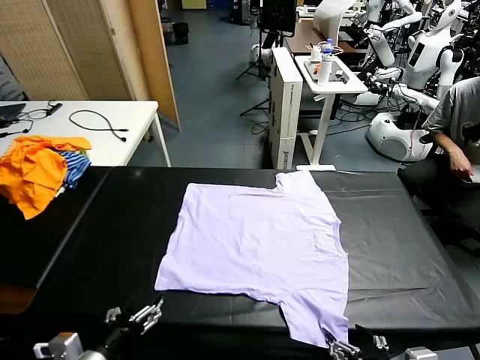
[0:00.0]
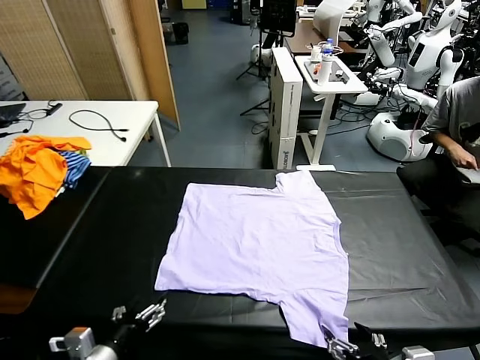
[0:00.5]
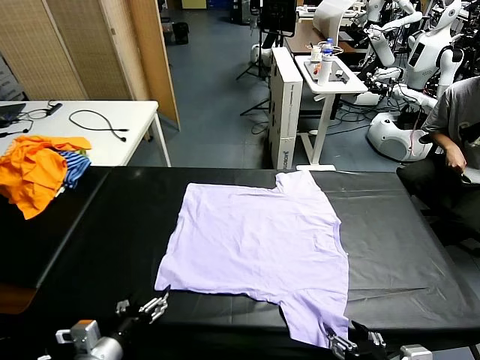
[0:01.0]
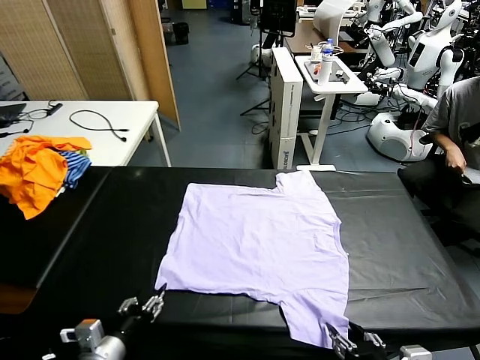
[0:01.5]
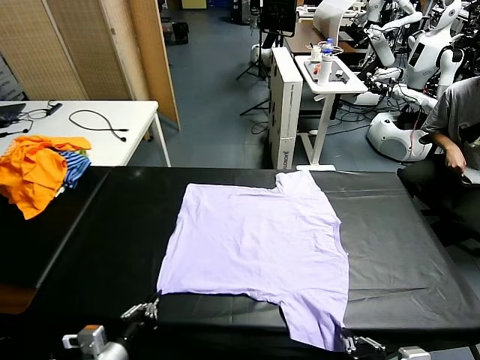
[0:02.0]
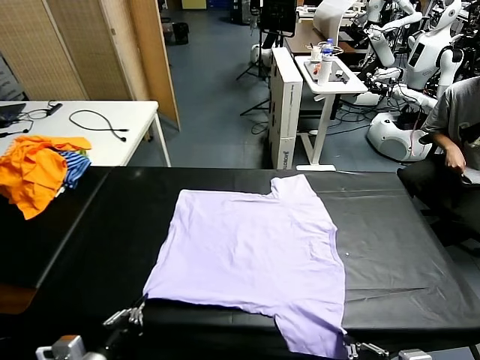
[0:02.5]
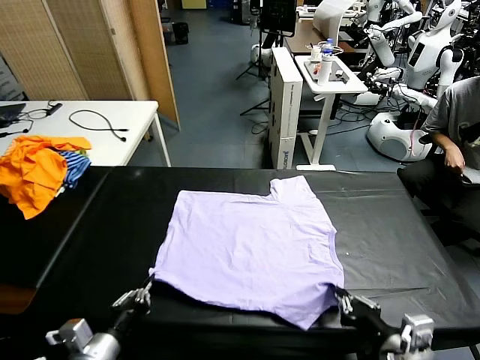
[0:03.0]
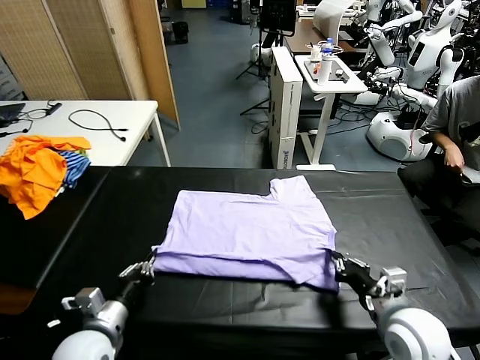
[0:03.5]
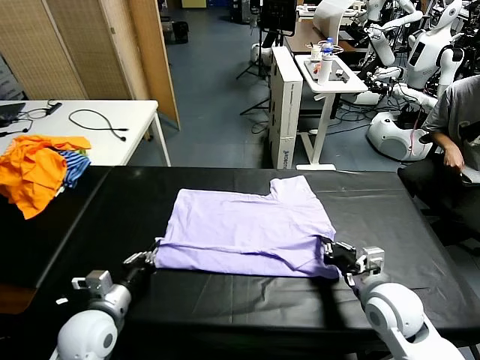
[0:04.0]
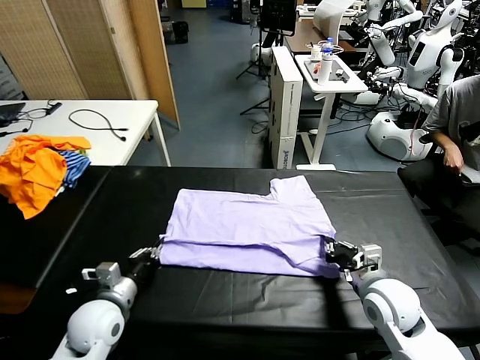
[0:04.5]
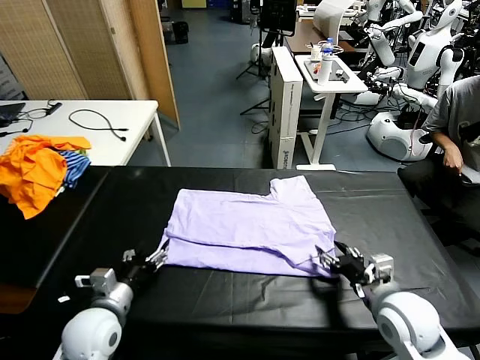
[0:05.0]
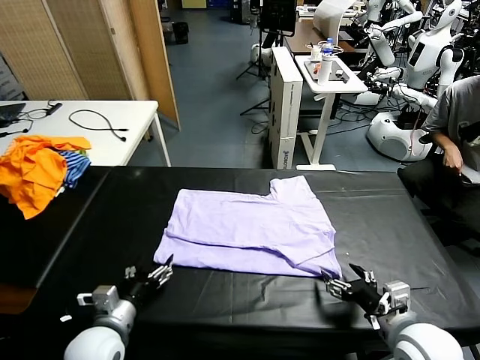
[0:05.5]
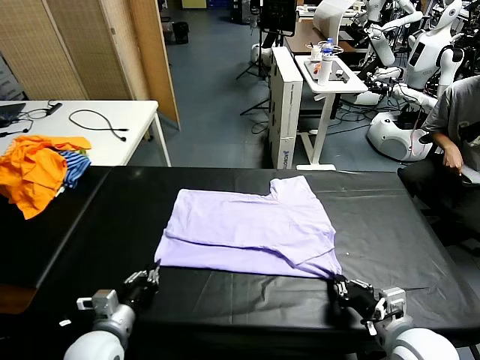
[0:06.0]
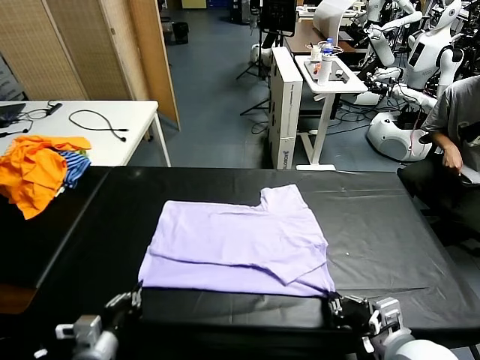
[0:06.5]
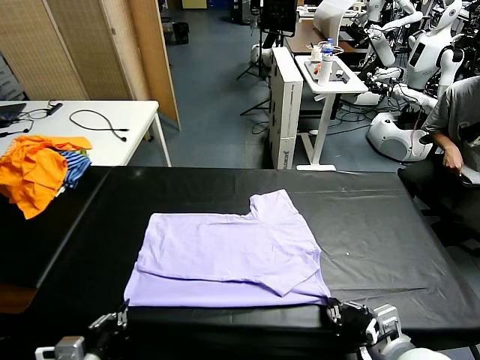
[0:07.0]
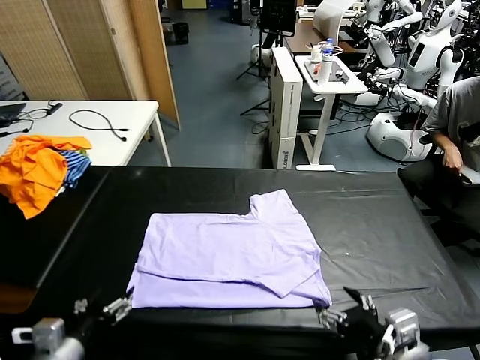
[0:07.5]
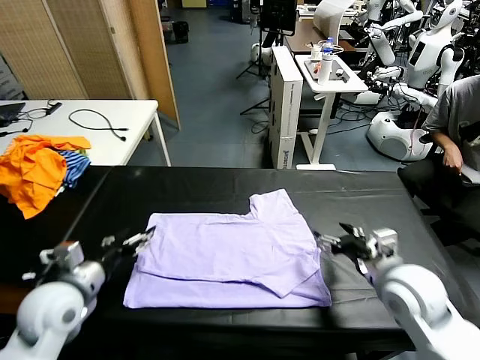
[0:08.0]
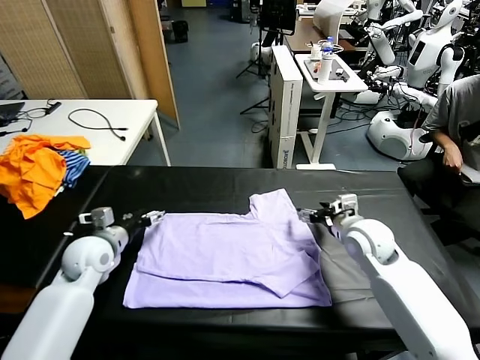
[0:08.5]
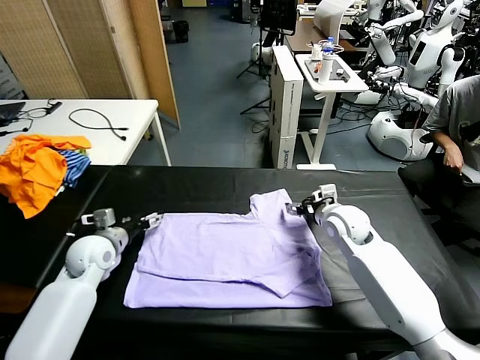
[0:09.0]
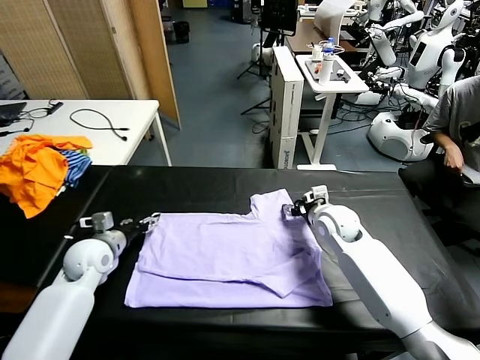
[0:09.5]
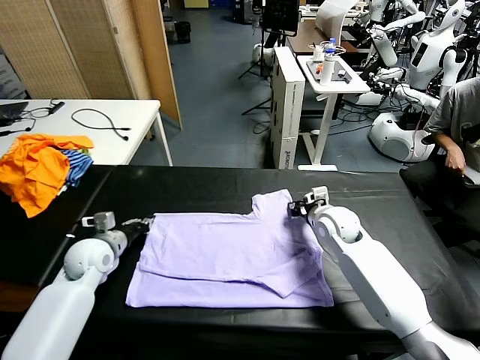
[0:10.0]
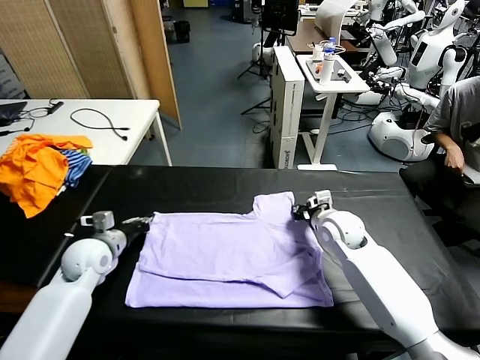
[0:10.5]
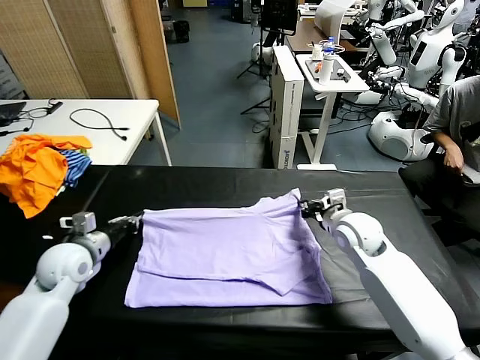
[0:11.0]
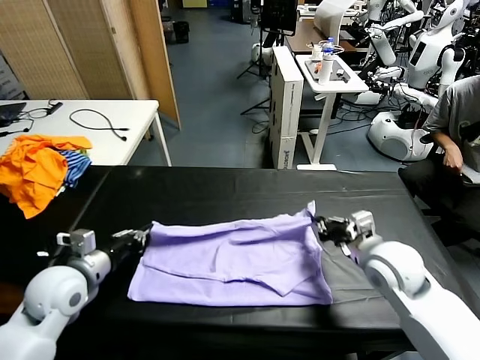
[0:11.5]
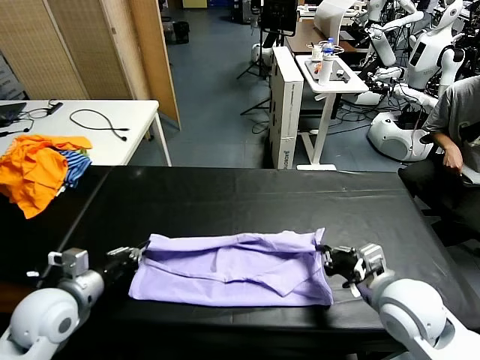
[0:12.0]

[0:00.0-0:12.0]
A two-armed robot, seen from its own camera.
Task of the whole recording: fold and organize the clothes.
Step, 0:00.0 to 0:02.0: use both grippers simultaneously to clamp the lower edge of the clothing fabric.
Step, 0:02.5 to 0:05.0: use both grippers to drag the lower edge of the fabric forward and fold it over the upper edge.
Step, 0:05.5 to 0:07.0: Drag the clothes downward with both gripper.
Step, 0:07.5 to 0:10.0: use both grippers simultaneously to clamp the upper edge of the clothing fabric.
0:02.0 to 0:04.0: The right gripper heads forward, covering roughly 20 cm, while the left gripper goes roughly 10 cm forward.
0:04.0 to 0:06.0: The left gripper opens, then closes once more. Meanwhile the right gripper travels backward by about 10 cm, and opens, then closes again.
0:06.0 to 0:08.0: The right gripper travels forward by approximately 15 cm, and opens; the left gripper heads upward, forward and to the left, covering approximately 15 cm, and opens up.
0:08.0 to 0:10.0: The grippers both shift forward and downward by some 15 cm. The right gripper closes its fingers. The left gripper closes its fingers.
0:10.0 to 0:12.0: The right gripper is displaced backward by some 25 cm. The left gripper is displaced backward and upward by about 15 cm.

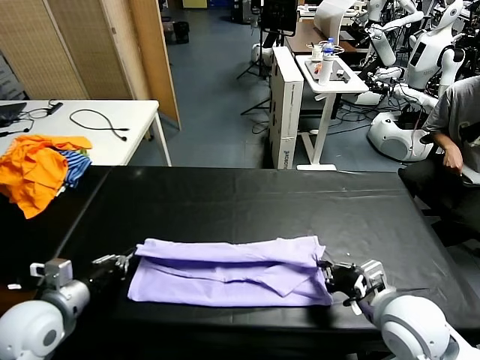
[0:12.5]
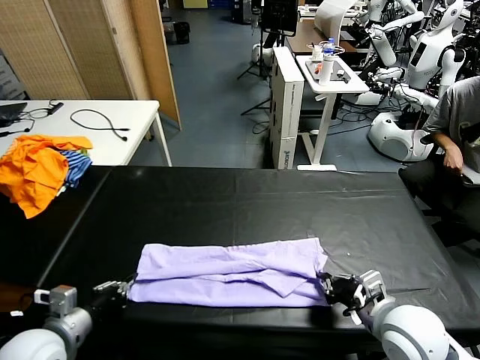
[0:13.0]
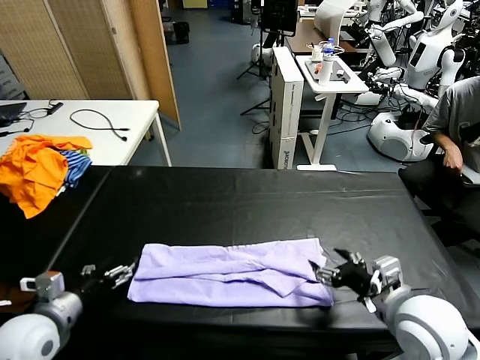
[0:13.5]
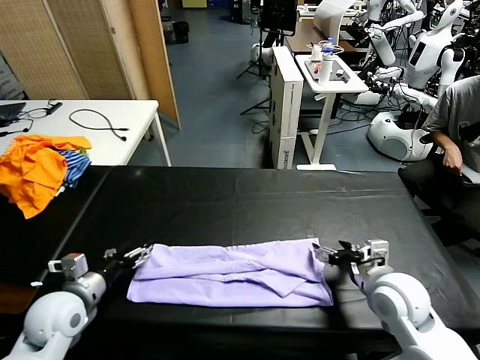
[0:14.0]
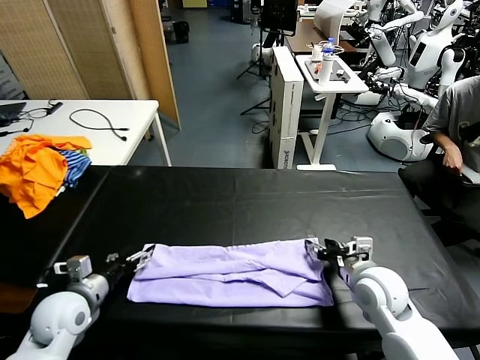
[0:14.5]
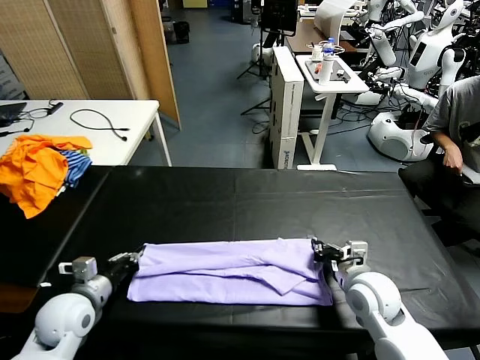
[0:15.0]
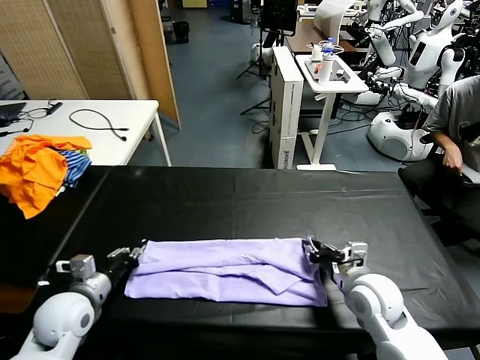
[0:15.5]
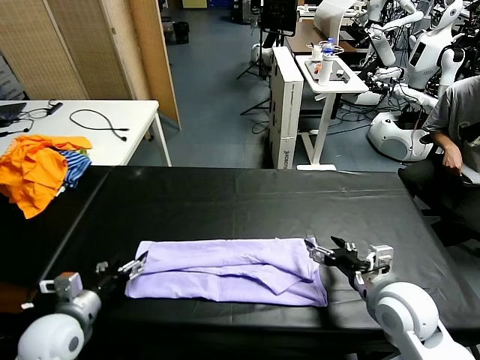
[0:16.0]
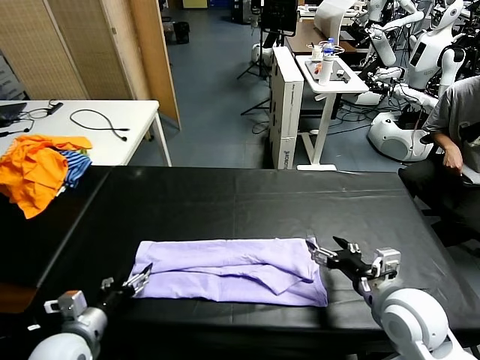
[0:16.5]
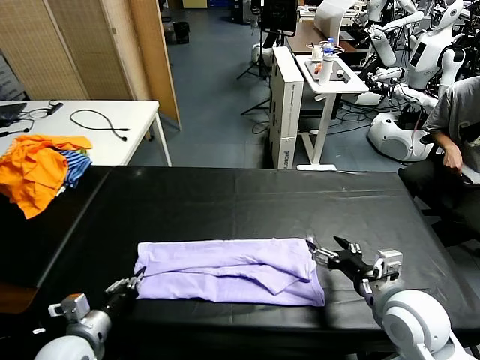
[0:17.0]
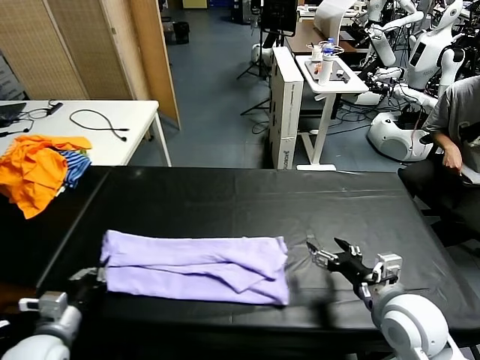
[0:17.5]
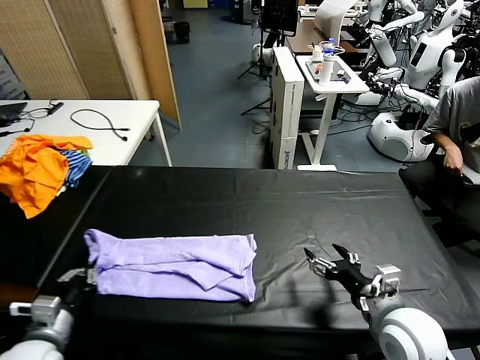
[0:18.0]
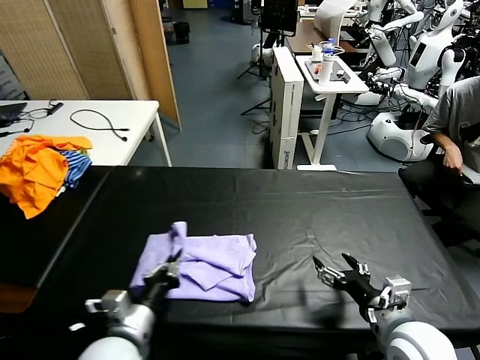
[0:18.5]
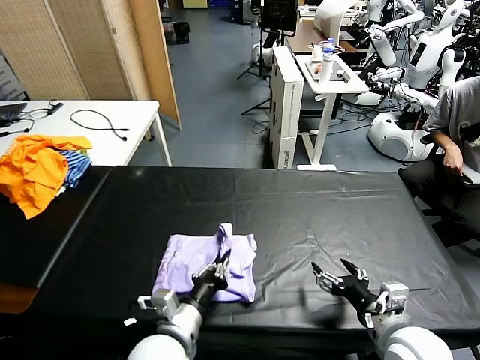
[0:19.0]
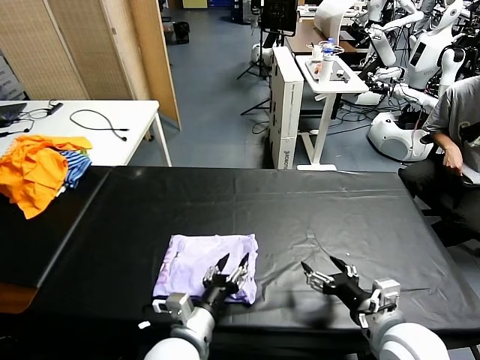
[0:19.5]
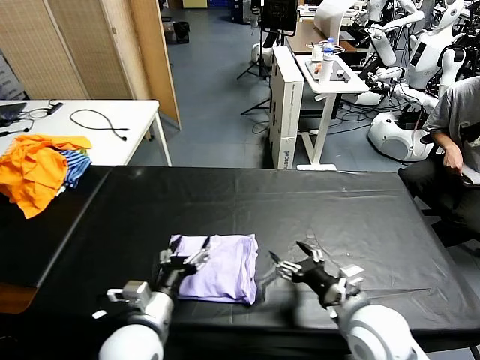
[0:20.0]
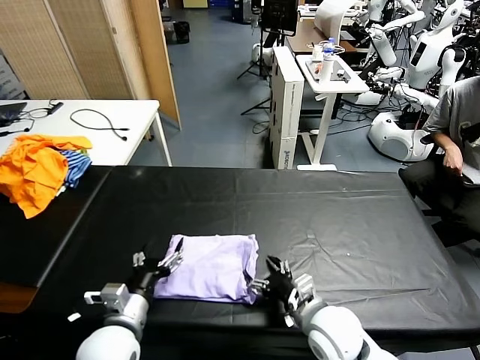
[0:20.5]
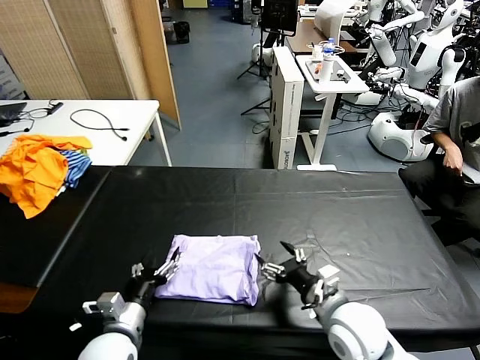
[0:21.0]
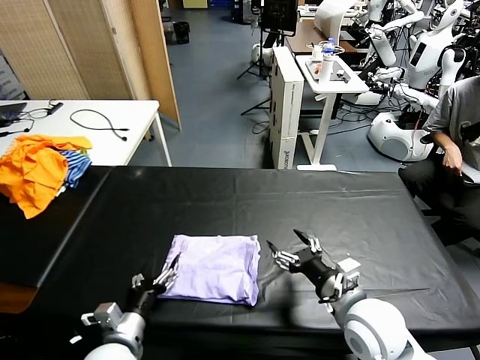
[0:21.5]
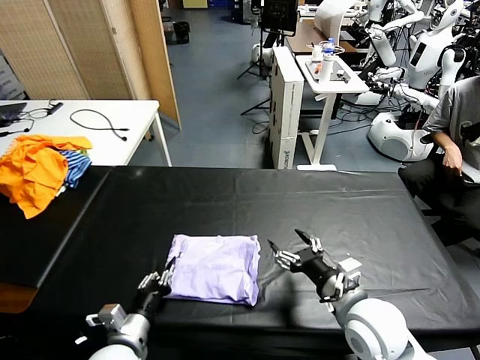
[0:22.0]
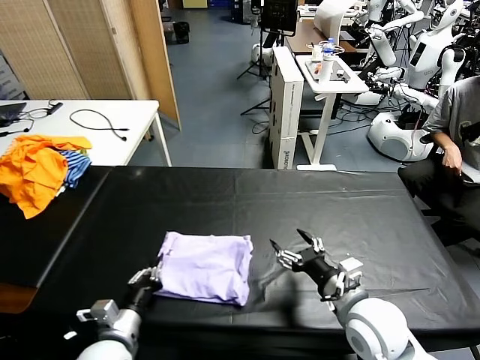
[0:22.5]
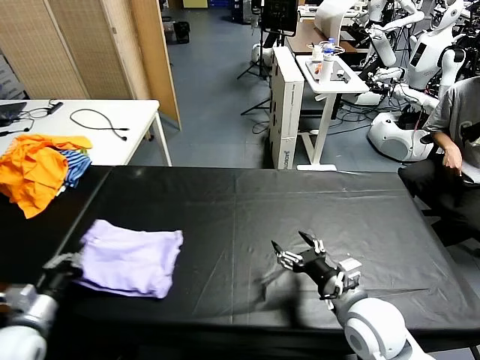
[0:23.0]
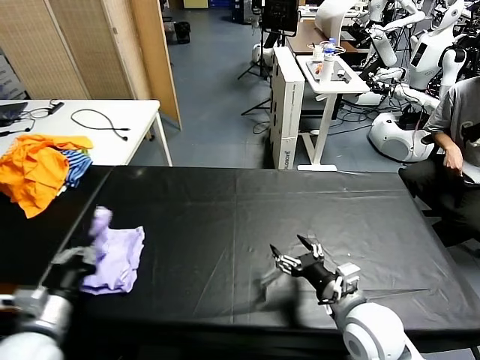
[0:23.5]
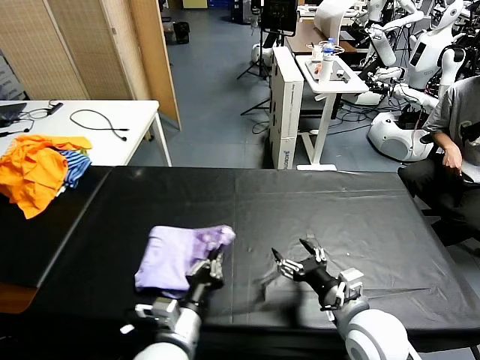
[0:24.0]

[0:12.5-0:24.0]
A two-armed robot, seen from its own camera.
Task of the whole recording: fold and organize the clothes.
Step, 0:12.5 to 0:15.5: use both grippers to drag the upper edge of the fabric backward and fold it over the lower edge.
Step, 0:16.0 to 0:17.0: use the left gripper to clamp the left edge of the fabric.
Step, 0:17.5 to 0:21.0: use the left gripper to drag the left edge of the fabric to the left and folds it over the right edge.
0:12.5 to 0:14.5: The left gripper shifts some 5 cm downward, and opens its fingers, while the right gripper shifts roughly 10 cm forward and downward, and opens up.
0:14.5 to 0:16.5: The right gripper is displaced backward and upward by approximately 10 cm, and opens up. Meanwhile the left gripper is displaced backward by some 5 cm, and closes, then reopens.
0:16.5 to 0:18.5: The left gripper is displaced to the right by some 10 cm, and closes up. The right gripper moves approximately 5 cm.
0:18.5 to 0:20.0: The left gripper opens, while the right gripper shifts some 5 cm to the left.
0:20.0 to 0:22.0: The left gripper shifts about 10 cm downward and to the left, and closes up.
0:22.0 to 0:24.0: The left gripper heads to the right and upward, covering some 10 cm, and closes up.

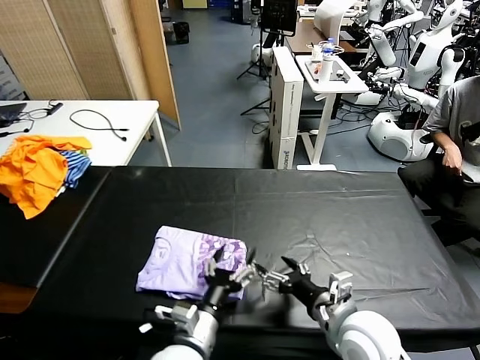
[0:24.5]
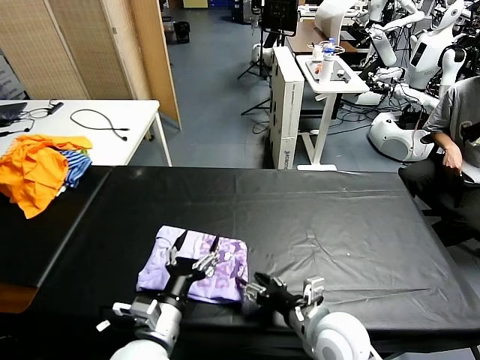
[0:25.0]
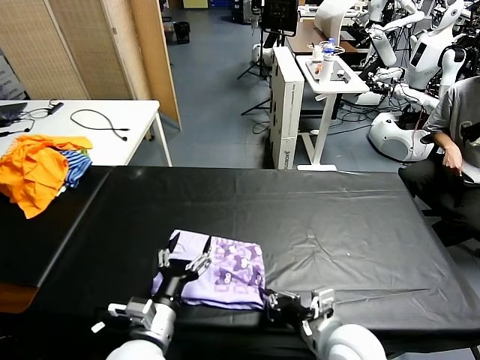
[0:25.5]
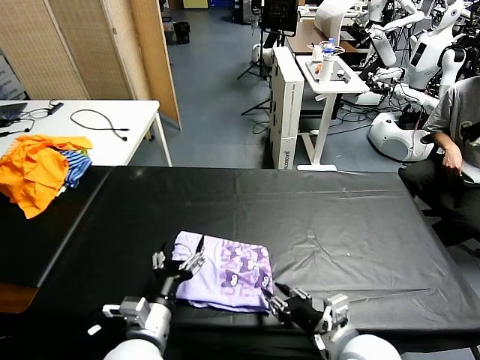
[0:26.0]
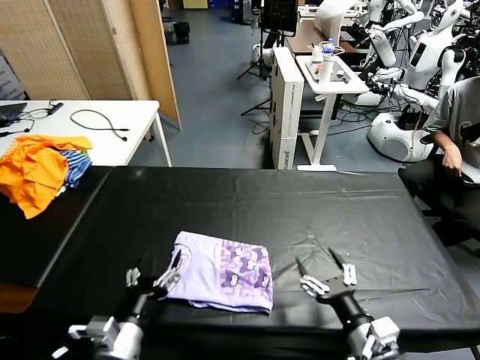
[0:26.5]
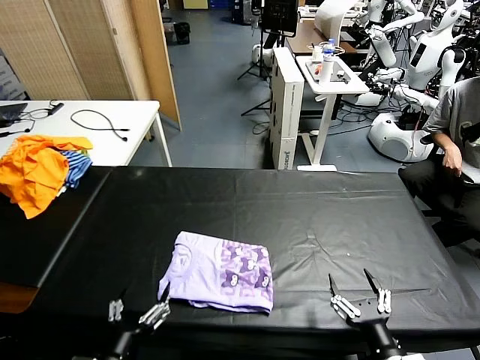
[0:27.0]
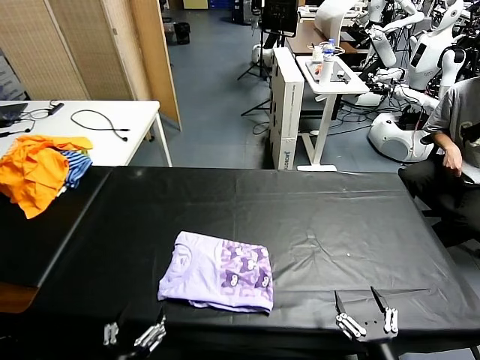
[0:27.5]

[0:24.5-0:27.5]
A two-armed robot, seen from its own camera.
Task of the whole recording: fold and organize the clothes.
Step, 0:25.0 to 0:26.0: Drag the clothes to the center of the table.
0:24.5 to 0:26.0: The right gripper closes its fingers, while the left gripper travels to the left by about 10 cm.
0:26.0 to 0:27.5: The right gripper heads backward and to the right, covering roughly 15 cm, and opens, while the left gripper travels backward and to the left by approximately 15 cm.
